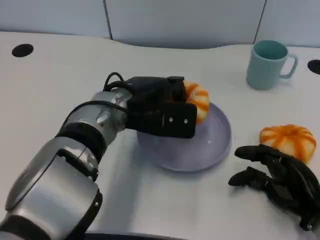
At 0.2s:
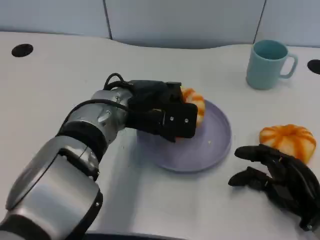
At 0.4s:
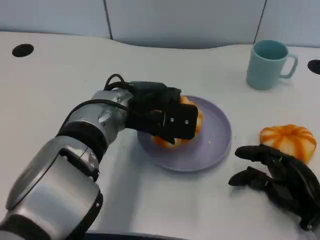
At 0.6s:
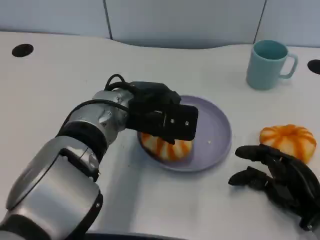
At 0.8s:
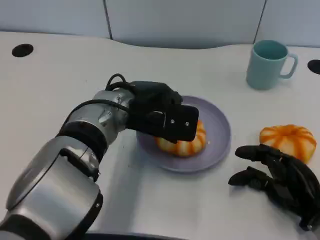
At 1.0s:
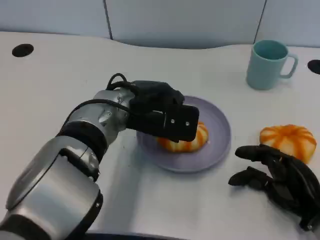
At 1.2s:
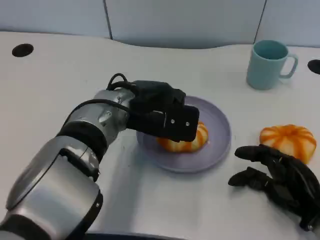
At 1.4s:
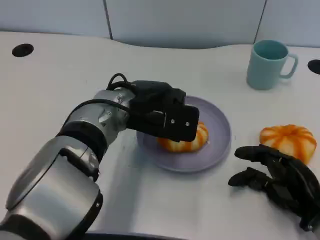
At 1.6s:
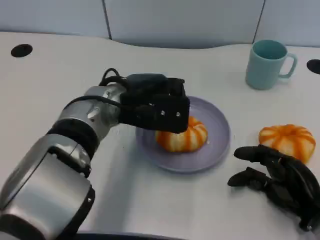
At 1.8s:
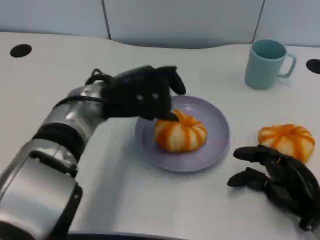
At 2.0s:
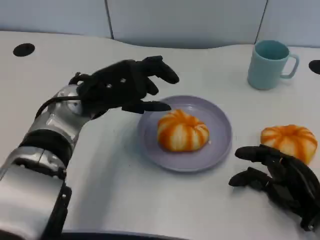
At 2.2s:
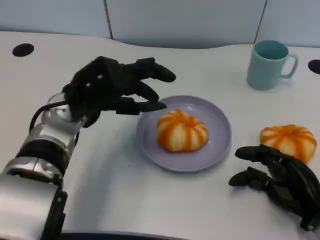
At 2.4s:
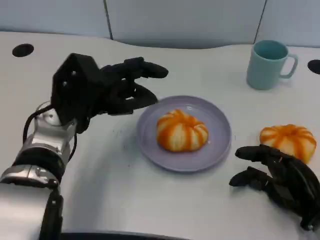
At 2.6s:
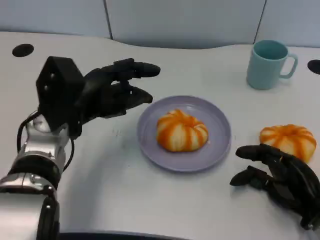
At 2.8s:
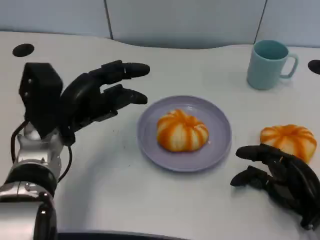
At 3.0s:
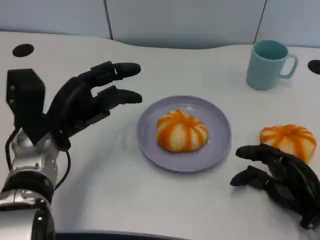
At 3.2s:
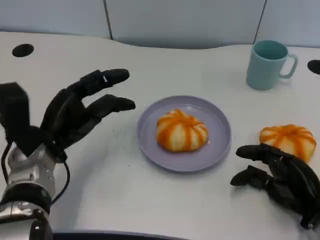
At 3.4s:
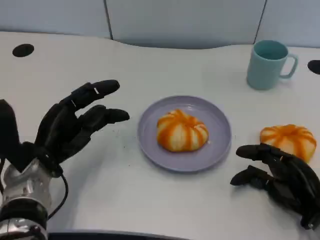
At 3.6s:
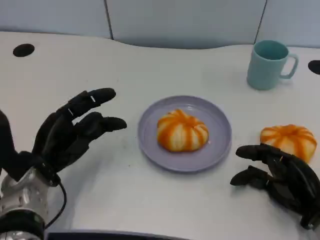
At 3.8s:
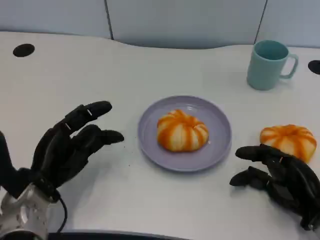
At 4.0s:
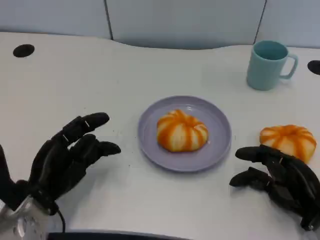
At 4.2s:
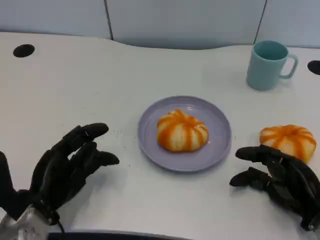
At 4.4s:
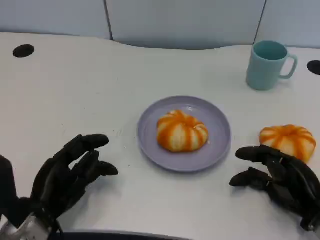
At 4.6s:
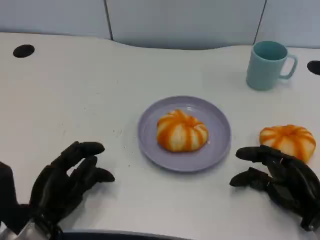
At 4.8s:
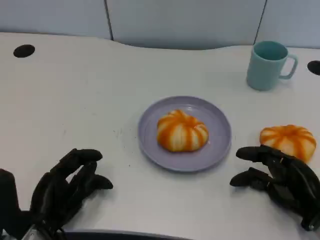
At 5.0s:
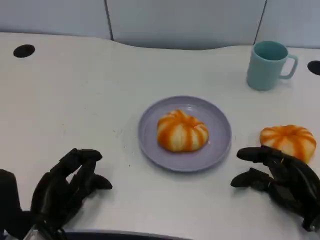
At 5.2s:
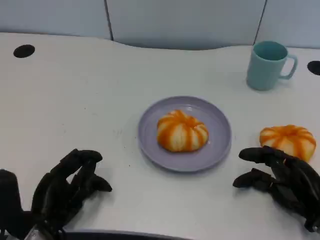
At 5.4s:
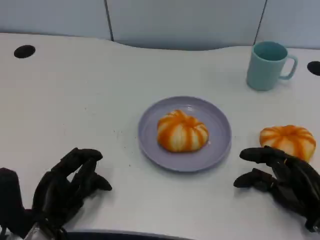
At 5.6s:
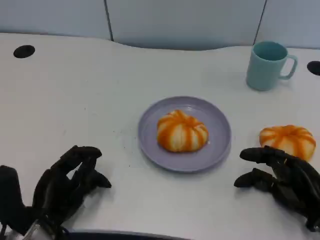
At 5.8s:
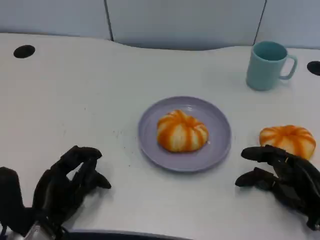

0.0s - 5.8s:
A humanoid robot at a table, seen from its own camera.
Task of the whole recording: Grasp the bread from the table and place it into the plate.
0.0s - 1.4s: Neither hand changes place.
1.4s - 2.8s: The left hand goes about 10 cm to the left.
2.8s - 4.4s: The left hand heads backward and downward, covering about 15 cm.
4.4s - 5.8s: The hands stay close to where they were, moving slightly.

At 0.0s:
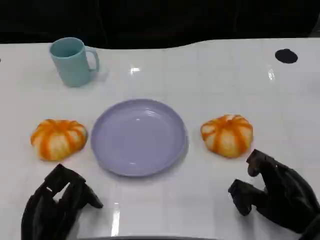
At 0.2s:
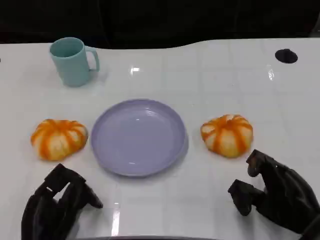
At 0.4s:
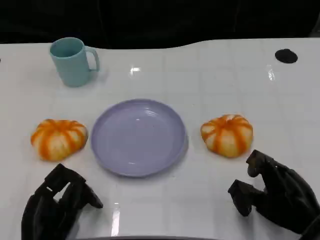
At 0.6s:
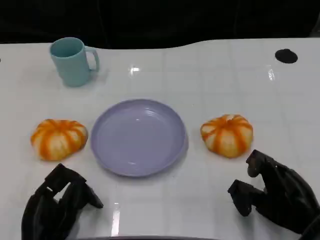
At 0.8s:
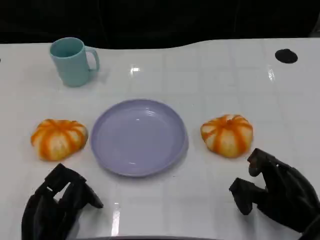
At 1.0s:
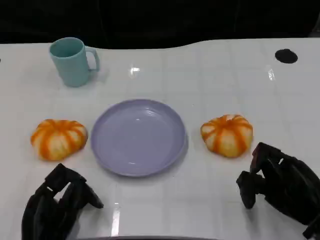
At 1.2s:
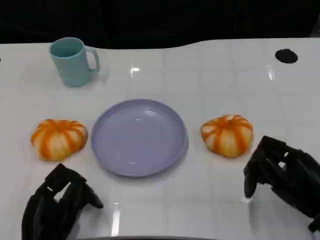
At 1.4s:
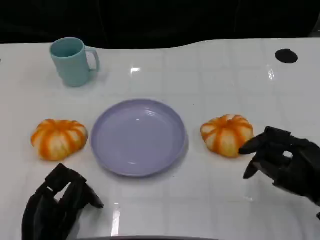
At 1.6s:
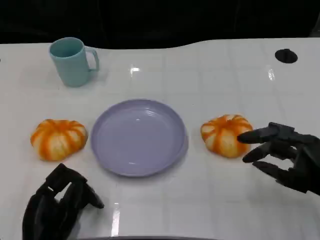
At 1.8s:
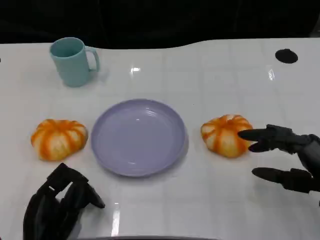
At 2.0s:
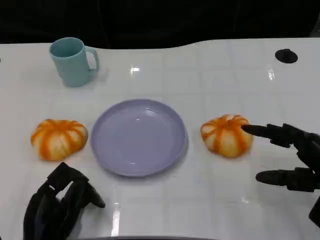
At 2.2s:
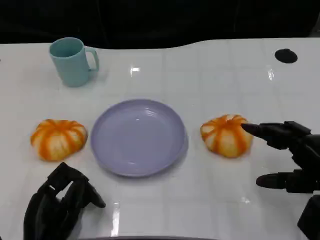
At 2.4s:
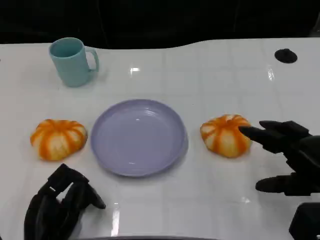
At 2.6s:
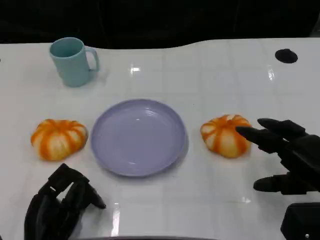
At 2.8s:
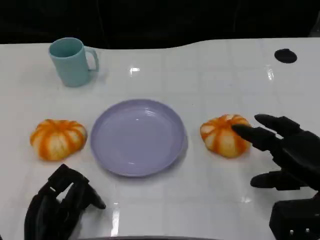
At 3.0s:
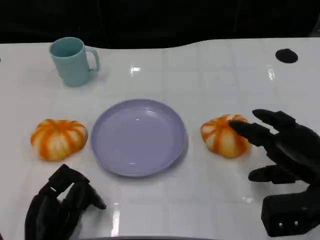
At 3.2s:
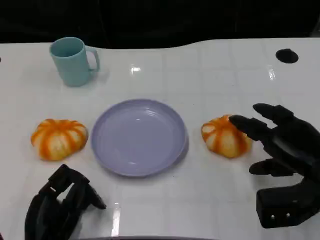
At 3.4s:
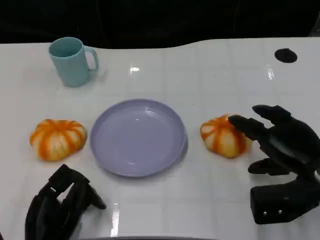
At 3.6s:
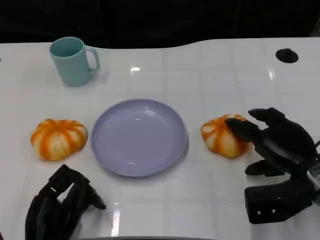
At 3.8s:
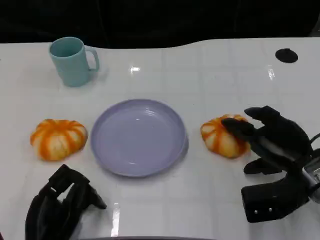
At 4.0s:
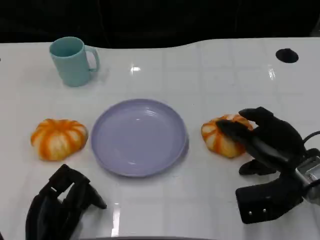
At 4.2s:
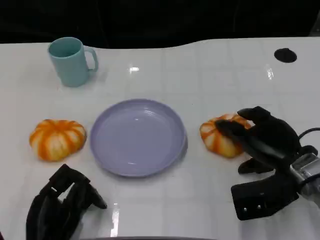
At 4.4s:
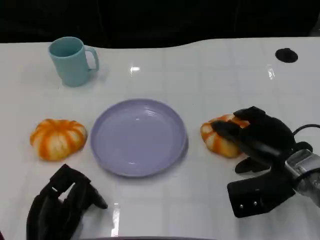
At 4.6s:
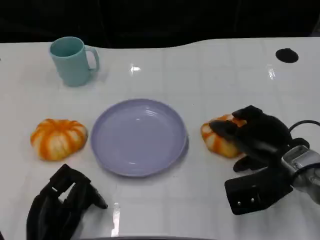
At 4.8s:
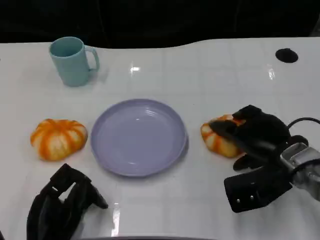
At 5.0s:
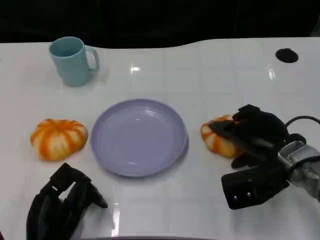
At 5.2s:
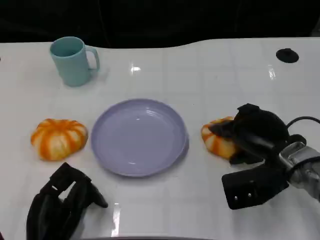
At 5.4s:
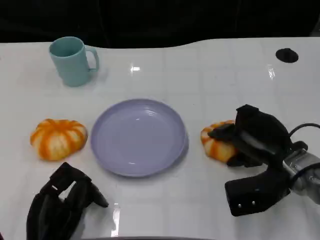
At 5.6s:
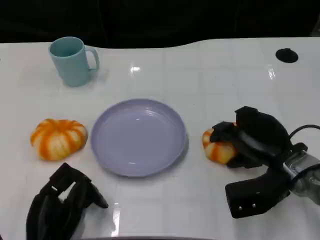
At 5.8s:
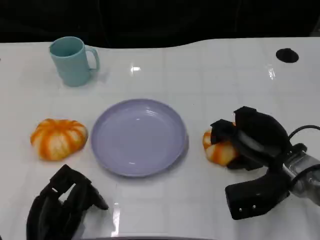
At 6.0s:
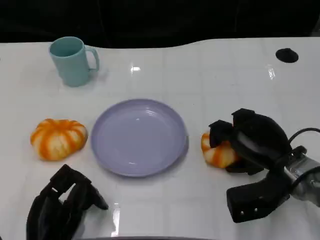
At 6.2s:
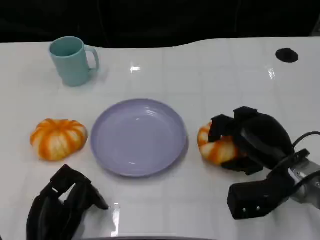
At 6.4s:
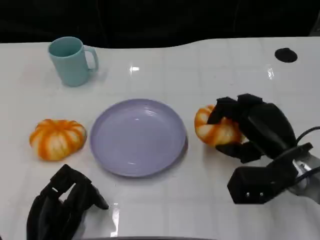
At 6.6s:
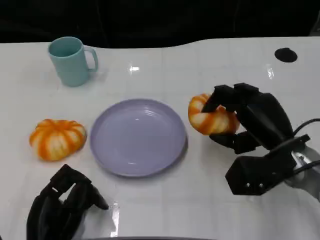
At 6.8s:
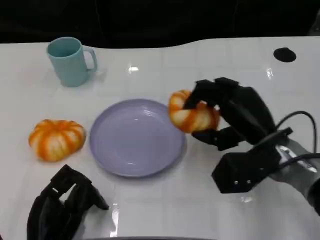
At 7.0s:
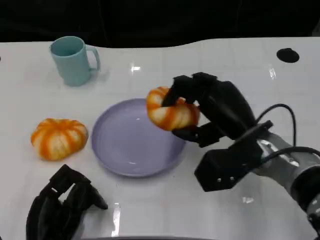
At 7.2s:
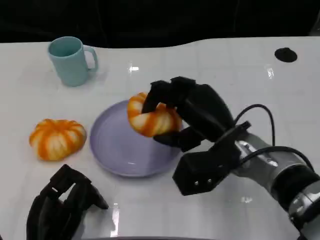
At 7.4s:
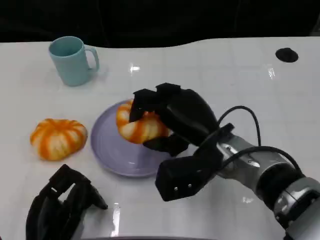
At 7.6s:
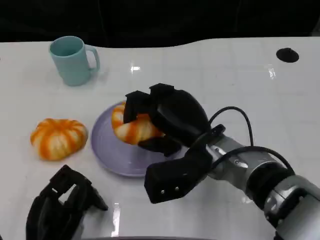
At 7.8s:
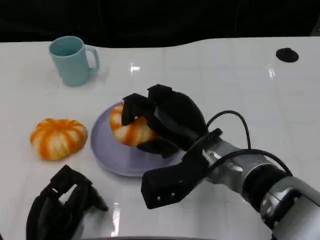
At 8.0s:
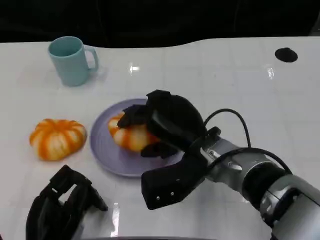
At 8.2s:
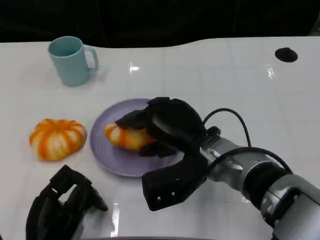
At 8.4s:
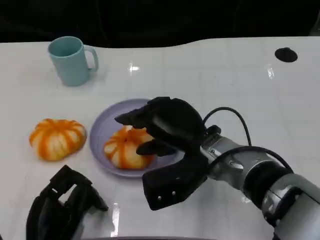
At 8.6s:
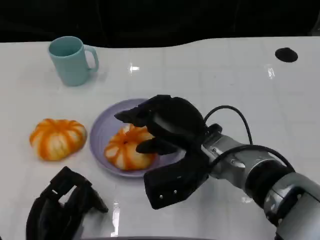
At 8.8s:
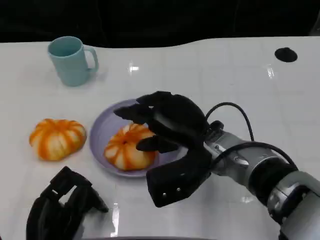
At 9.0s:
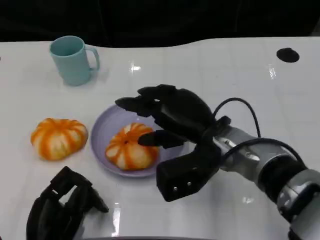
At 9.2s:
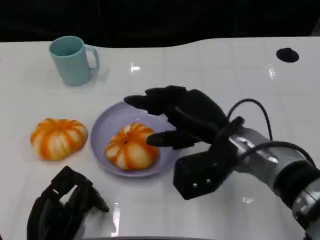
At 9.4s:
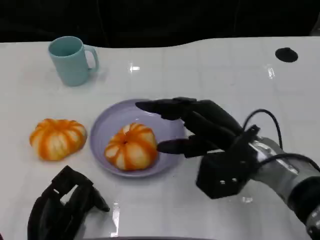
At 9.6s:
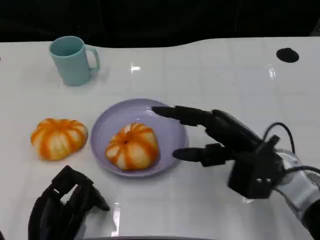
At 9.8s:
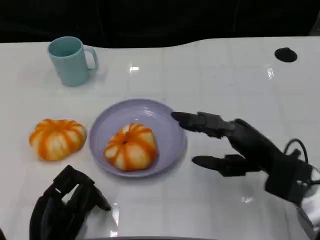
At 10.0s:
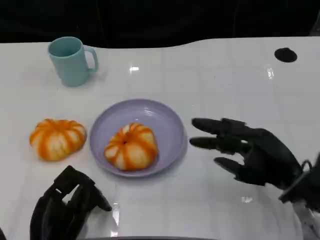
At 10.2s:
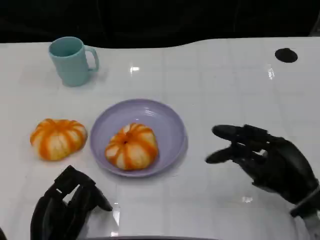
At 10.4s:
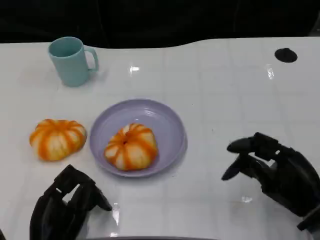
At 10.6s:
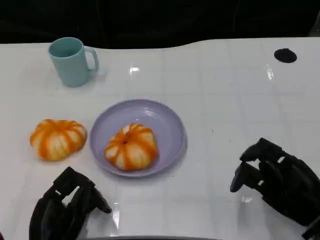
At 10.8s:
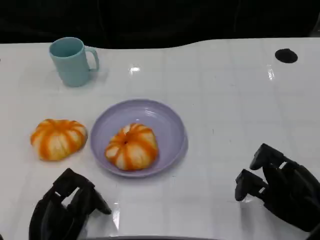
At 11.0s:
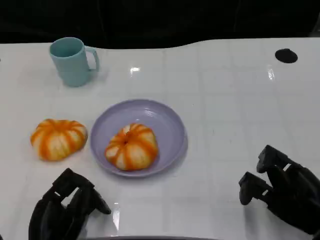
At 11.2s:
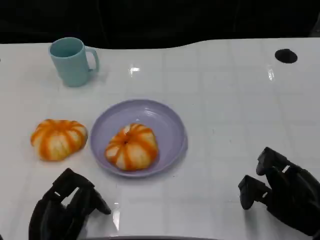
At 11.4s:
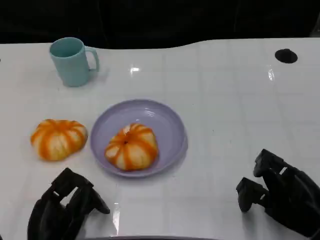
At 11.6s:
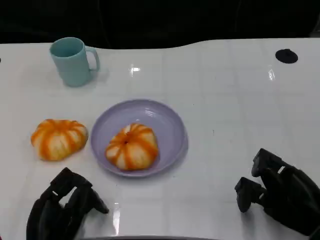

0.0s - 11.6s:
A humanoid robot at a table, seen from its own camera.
Task of the whole recording: Grasp the bread from the table and place it into the plate.
0.0s - 1.4s: The right hand shifts by about 5 cm.
2.8s - 4.4s: The right hand heads forward and to the left, covering roughly 10 cm.
4.4s - 5.8s: The hands make only small movements.
5.8s - 7.2s: The right hand shifts about 10 cm to the left.
8.8s - 10.2s: The right hand moves to the right, about 15 cm.

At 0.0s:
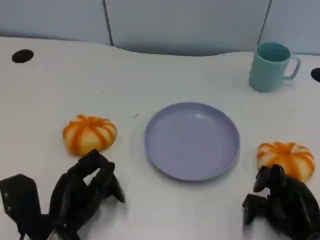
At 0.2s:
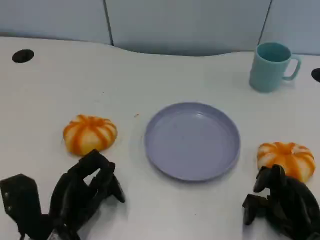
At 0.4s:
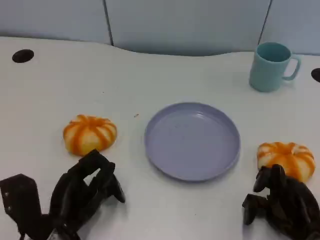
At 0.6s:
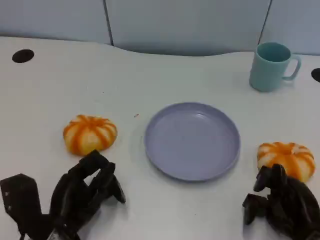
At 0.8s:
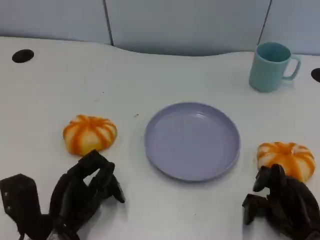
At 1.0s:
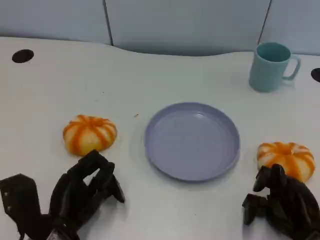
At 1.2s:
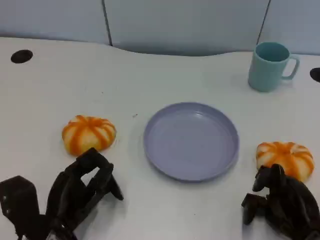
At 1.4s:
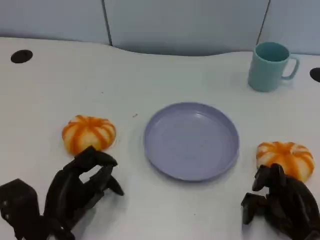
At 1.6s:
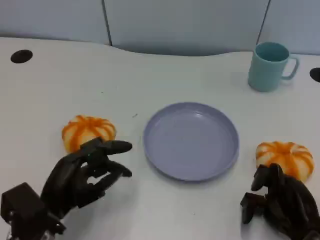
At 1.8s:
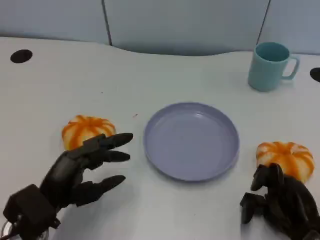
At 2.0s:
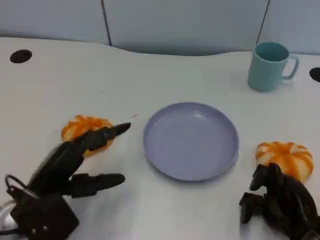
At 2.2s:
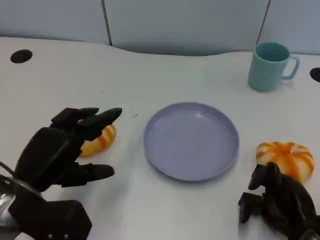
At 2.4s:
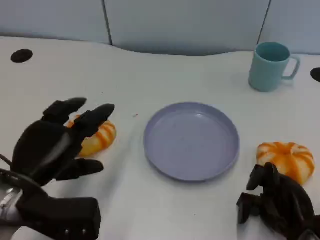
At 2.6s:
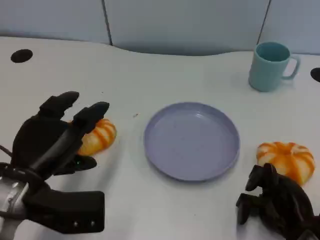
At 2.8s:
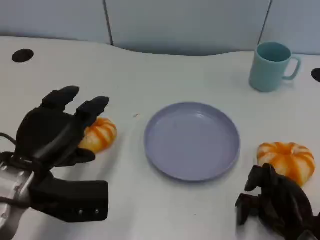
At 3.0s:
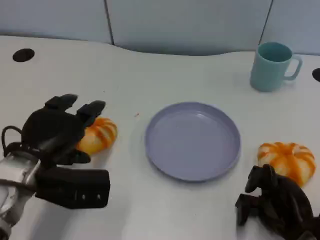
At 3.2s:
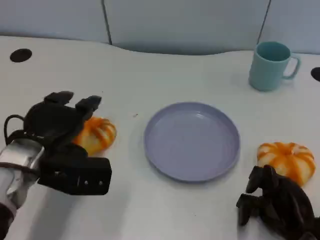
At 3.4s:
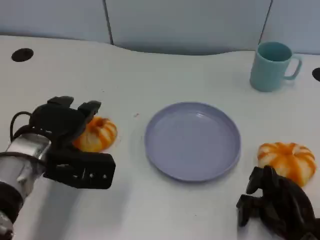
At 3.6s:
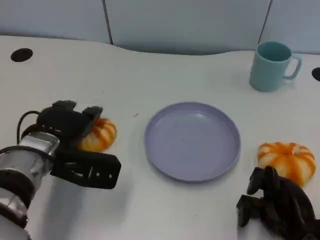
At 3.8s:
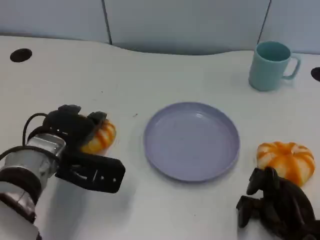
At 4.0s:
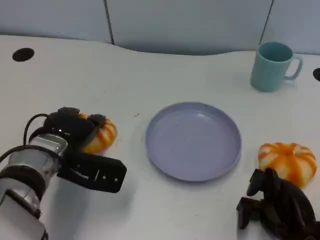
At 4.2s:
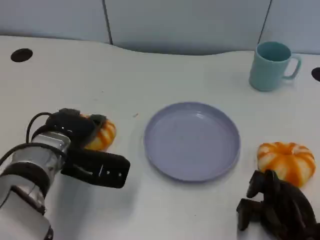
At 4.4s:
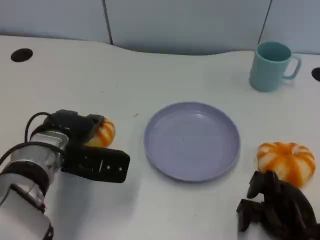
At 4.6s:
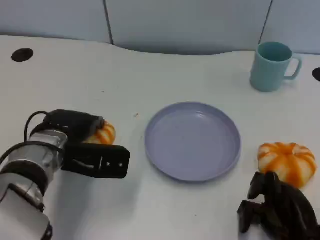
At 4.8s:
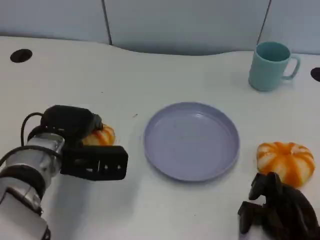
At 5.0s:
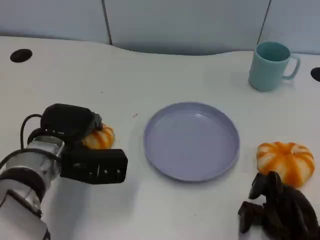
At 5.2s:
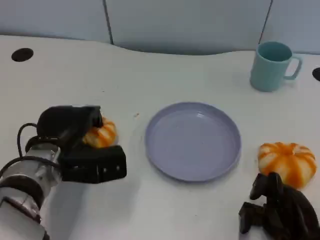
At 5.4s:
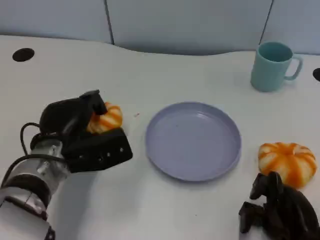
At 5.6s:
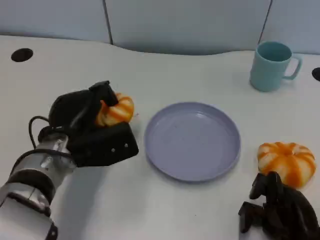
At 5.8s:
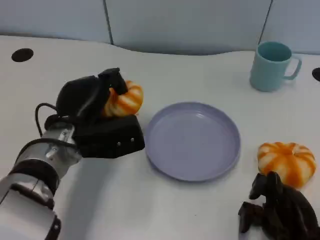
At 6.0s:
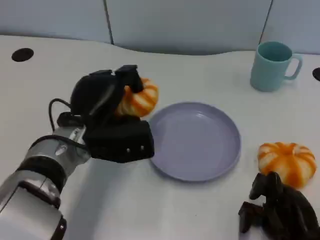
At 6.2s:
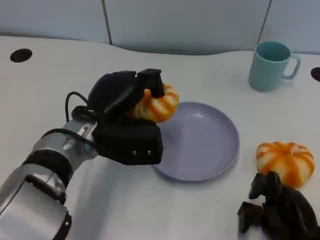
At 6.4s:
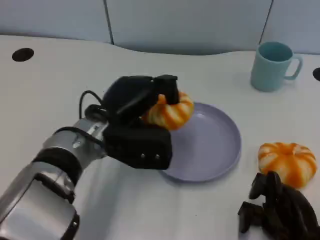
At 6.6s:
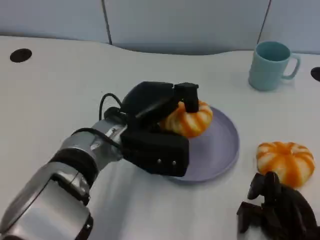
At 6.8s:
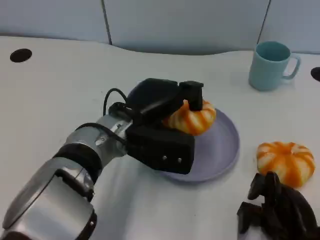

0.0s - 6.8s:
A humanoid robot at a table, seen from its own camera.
Task of the whole recording: Grasp the bread from the table and place it into the plate.
0.0s - 1.4s: The hands stay close to where they were, moving slightly.
1.4s - 2.8s: The left hand is displaced upward by some 10 cm.
2.8s - 4.0s: The left hand is displaced forward by roughly 5 cm.
5.4s - 6.8s: The left hand goes about 10 cm to the right.
